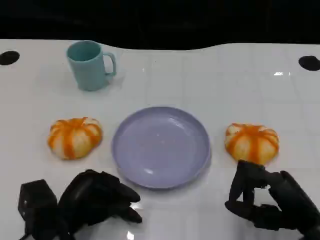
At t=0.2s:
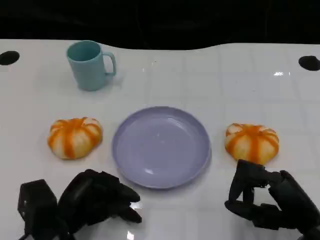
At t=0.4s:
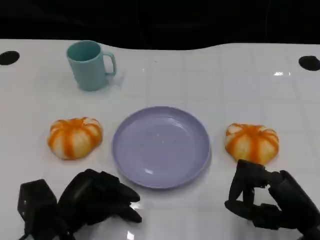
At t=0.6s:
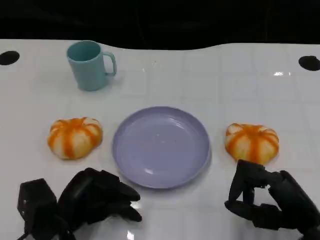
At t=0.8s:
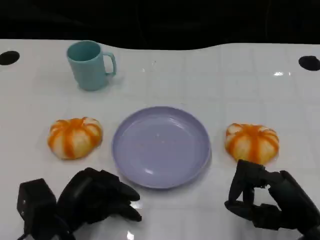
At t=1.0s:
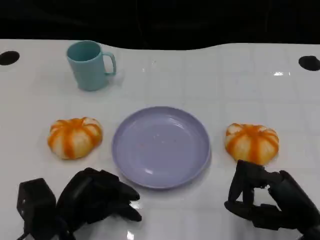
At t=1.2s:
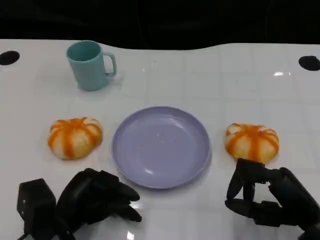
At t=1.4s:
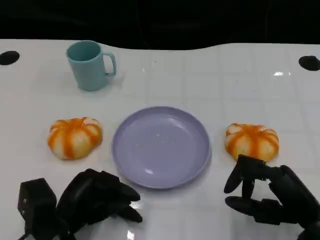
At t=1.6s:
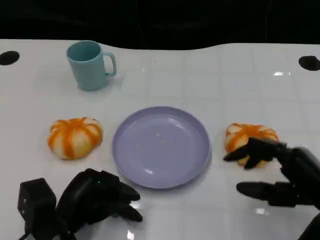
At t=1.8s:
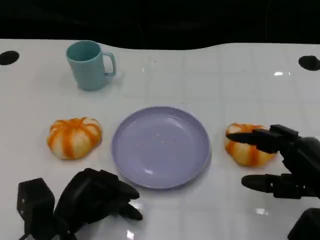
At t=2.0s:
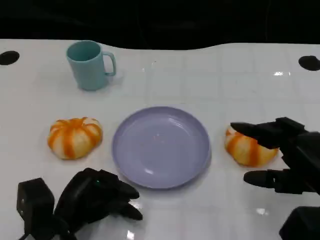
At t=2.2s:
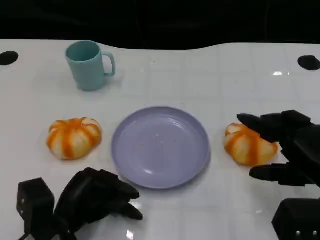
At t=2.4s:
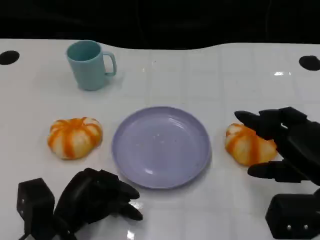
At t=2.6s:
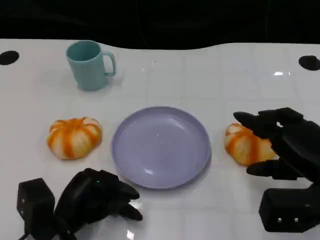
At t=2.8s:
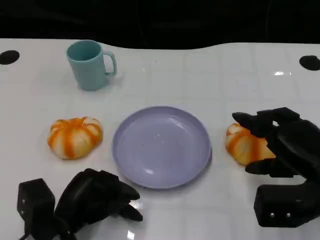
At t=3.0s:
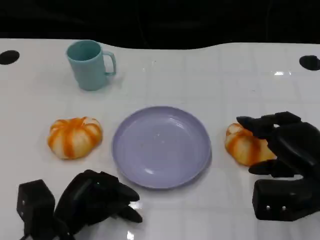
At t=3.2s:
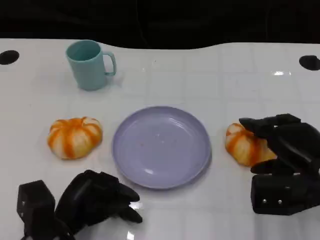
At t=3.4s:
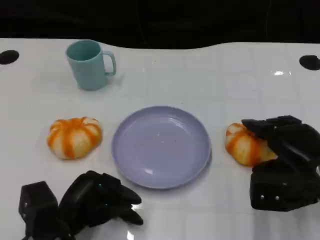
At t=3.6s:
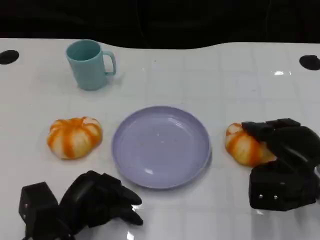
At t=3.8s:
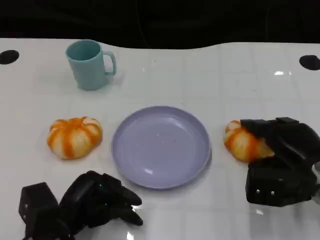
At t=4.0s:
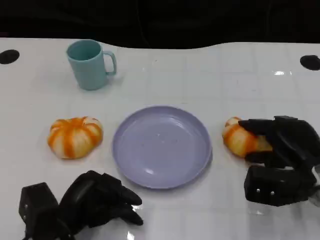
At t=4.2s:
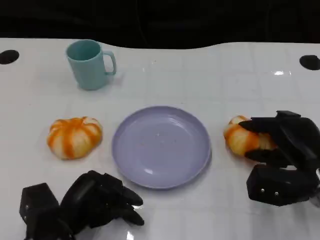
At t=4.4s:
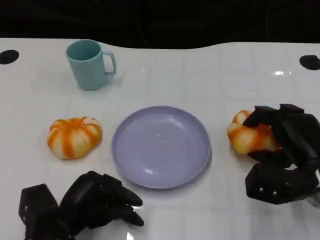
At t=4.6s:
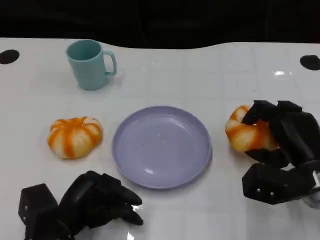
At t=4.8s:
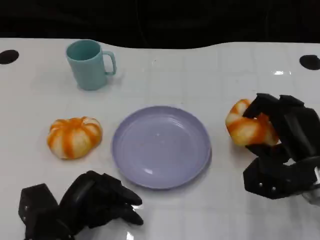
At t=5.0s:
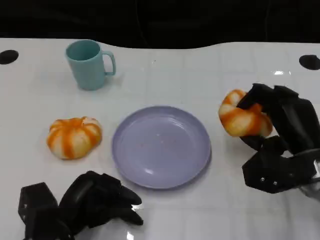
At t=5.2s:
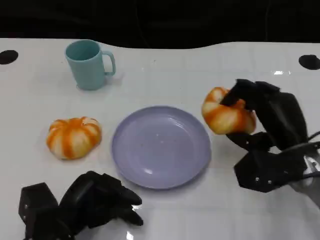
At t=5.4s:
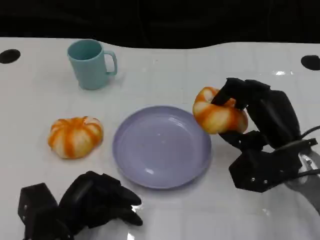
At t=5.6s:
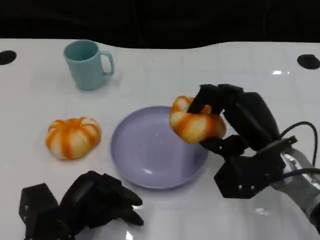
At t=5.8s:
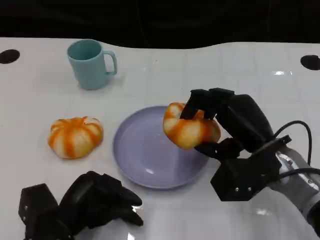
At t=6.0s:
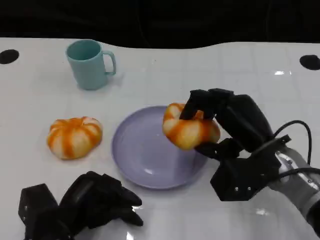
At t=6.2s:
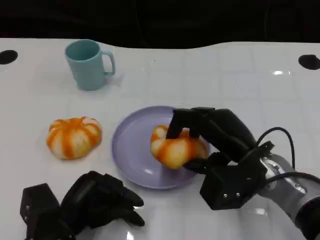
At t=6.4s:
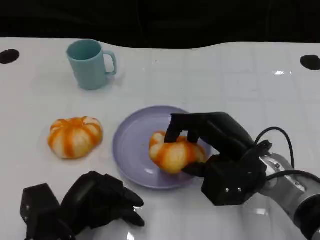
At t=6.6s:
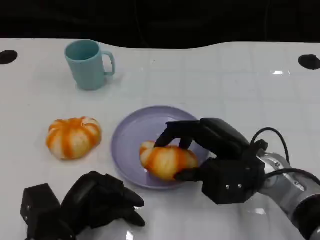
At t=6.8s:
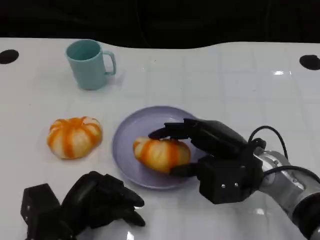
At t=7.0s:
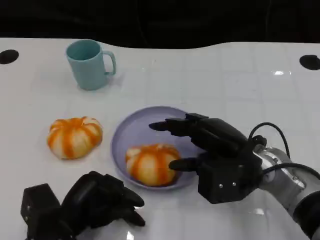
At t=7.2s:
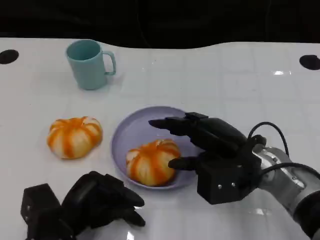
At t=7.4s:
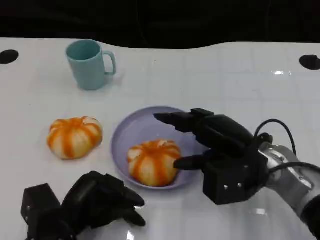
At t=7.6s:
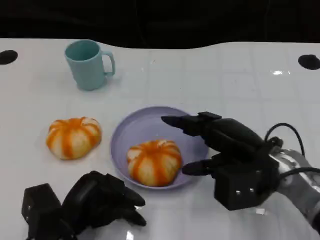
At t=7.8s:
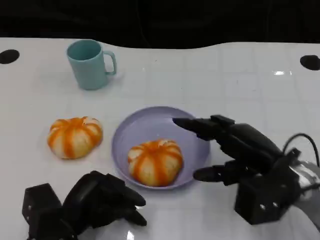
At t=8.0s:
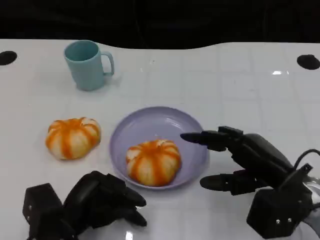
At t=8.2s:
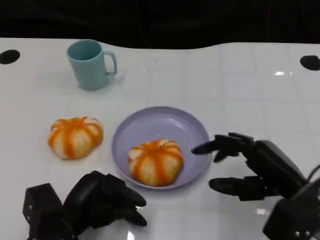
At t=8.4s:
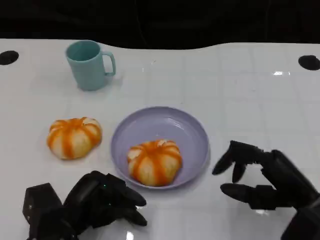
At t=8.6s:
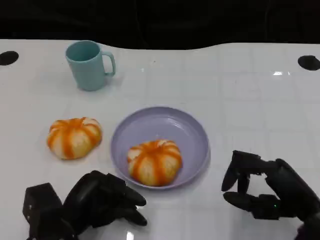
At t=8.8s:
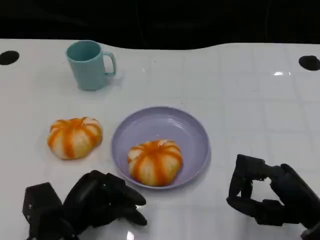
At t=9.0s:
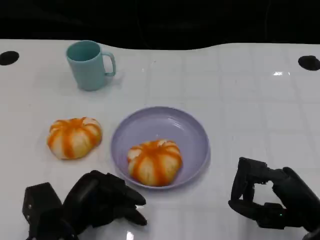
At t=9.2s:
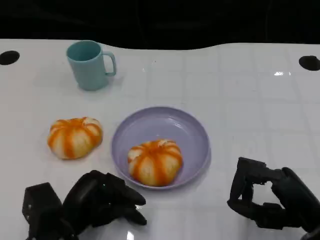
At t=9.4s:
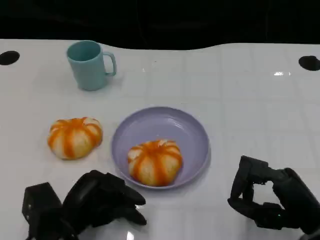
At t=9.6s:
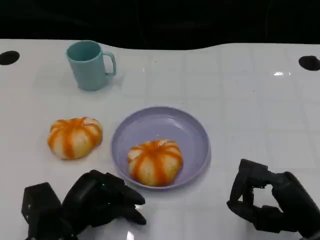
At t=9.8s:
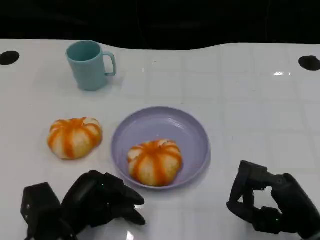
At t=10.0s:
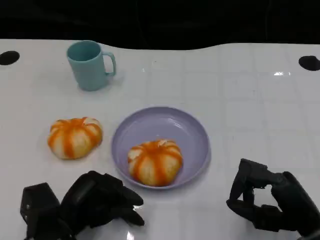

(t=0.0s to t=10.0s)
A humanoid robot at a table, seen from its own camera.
Task of the whole recording: Grasp the bread from the table and place it into the plate.
t=0.0s - t=1.4s: The two hands keep their place.
t=1.4s - t=2.8s: The right hand heads forward, covering roughly 5 cm.
t=2.8s - t=4.2s: The right hand moves roughly 5 cm.
t=4.2s - t=5.8s: The right hand shifts approximately 5 cm to the left.
t=7.2s - t=8.6s: The right hand heads backward and to the right, covering about 10 cm.
t=8.6s - t=10.0s: The hands move only a little.
